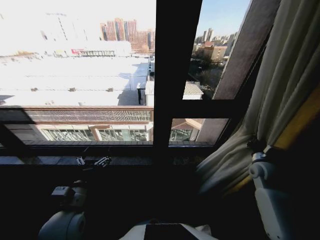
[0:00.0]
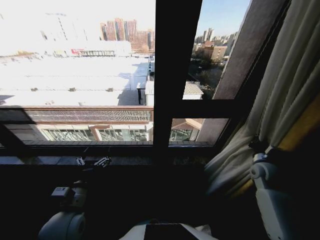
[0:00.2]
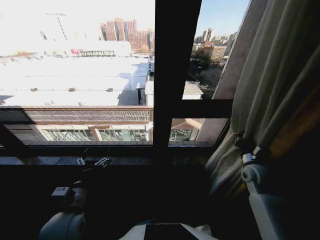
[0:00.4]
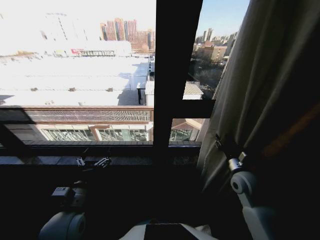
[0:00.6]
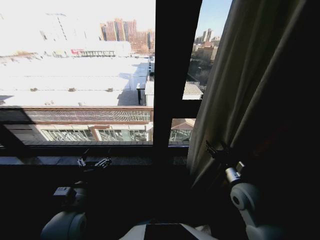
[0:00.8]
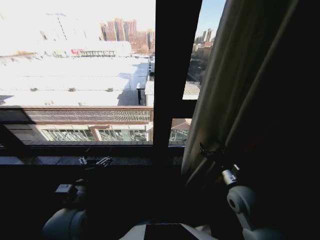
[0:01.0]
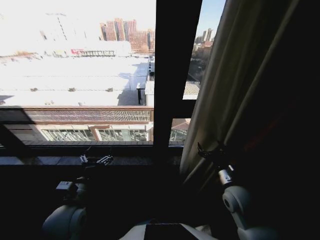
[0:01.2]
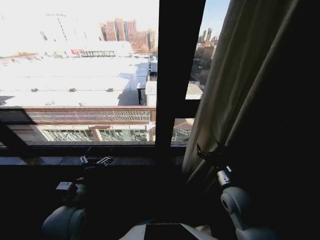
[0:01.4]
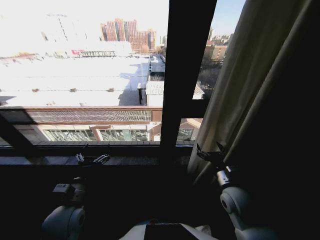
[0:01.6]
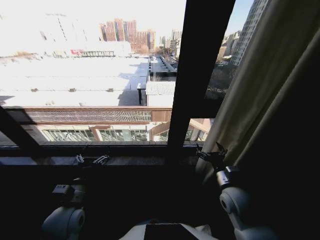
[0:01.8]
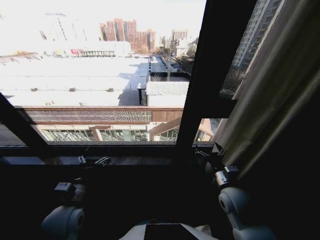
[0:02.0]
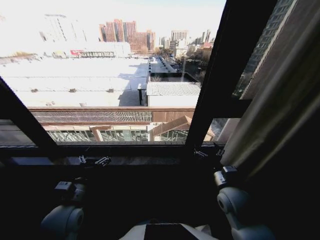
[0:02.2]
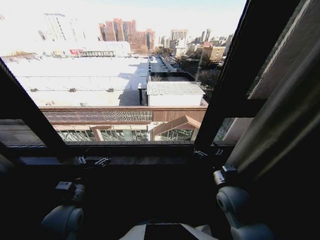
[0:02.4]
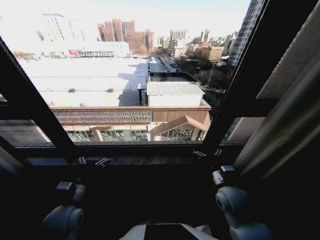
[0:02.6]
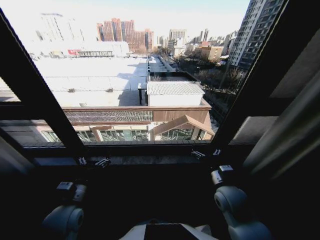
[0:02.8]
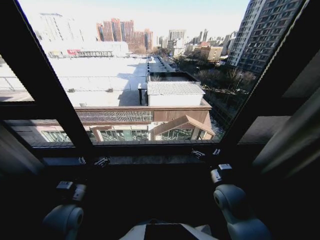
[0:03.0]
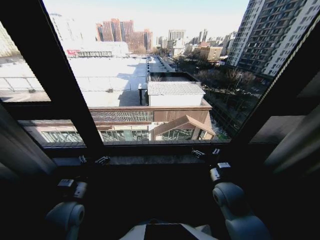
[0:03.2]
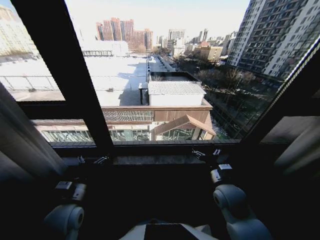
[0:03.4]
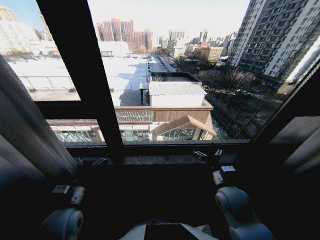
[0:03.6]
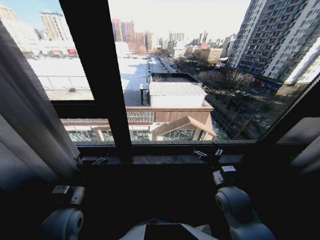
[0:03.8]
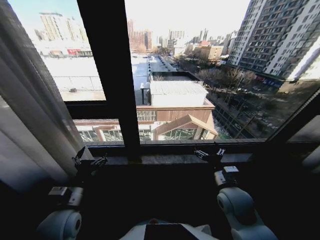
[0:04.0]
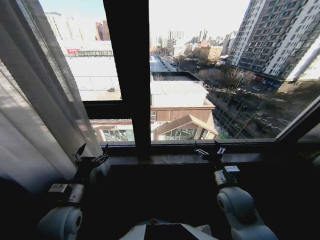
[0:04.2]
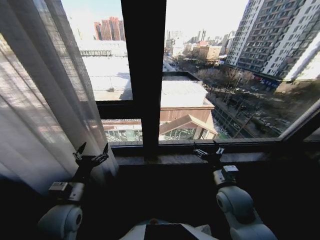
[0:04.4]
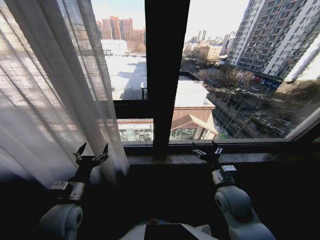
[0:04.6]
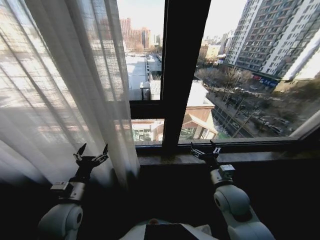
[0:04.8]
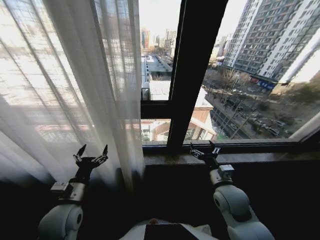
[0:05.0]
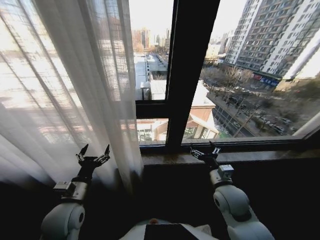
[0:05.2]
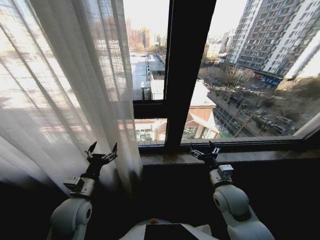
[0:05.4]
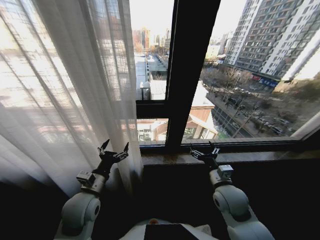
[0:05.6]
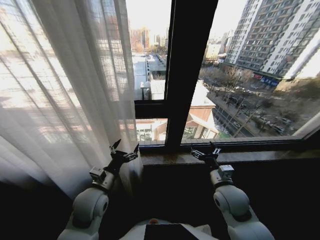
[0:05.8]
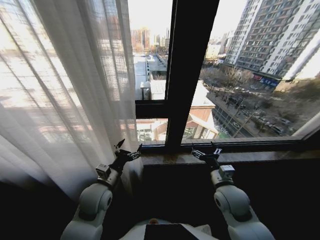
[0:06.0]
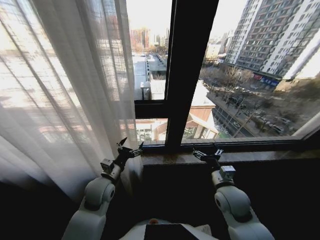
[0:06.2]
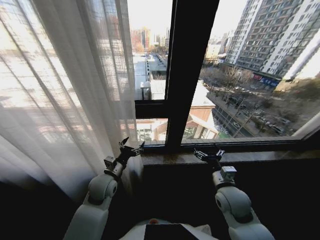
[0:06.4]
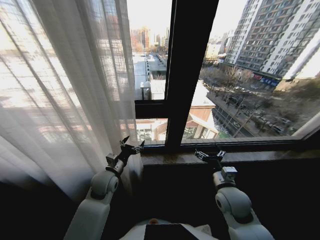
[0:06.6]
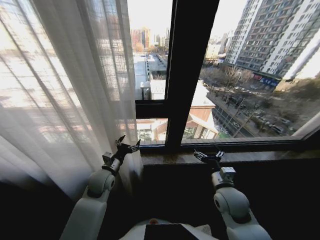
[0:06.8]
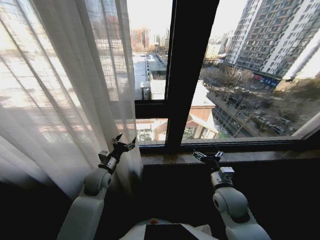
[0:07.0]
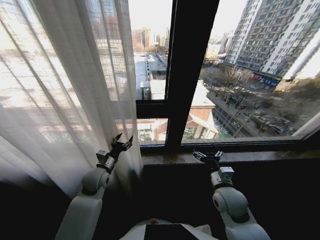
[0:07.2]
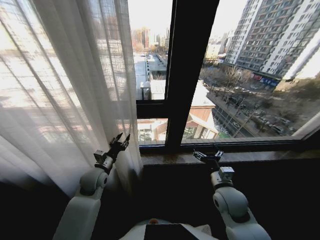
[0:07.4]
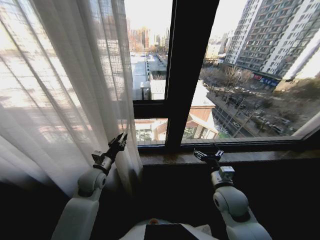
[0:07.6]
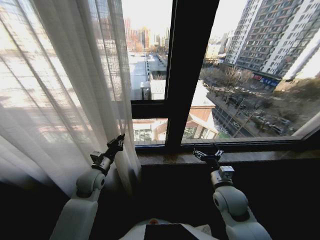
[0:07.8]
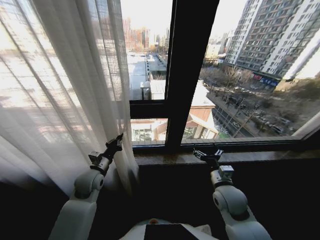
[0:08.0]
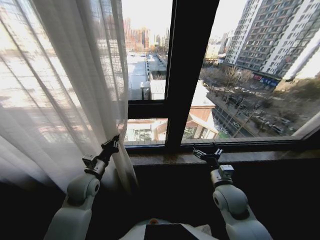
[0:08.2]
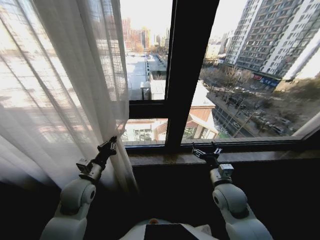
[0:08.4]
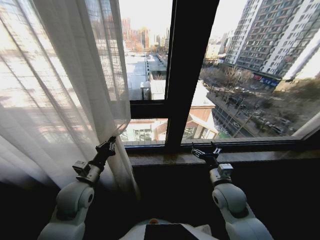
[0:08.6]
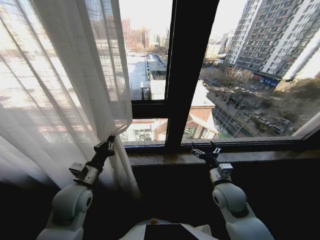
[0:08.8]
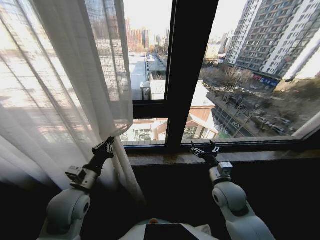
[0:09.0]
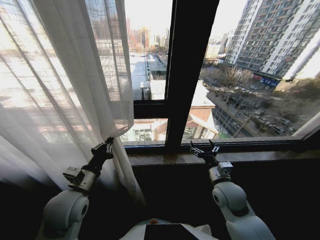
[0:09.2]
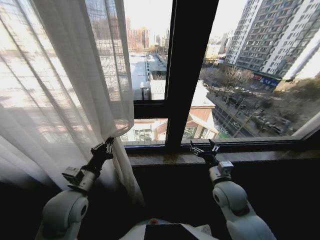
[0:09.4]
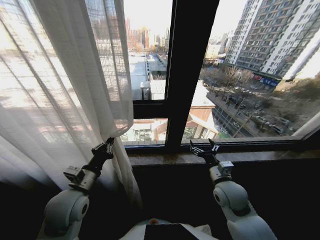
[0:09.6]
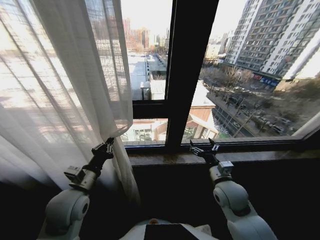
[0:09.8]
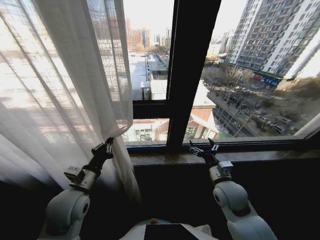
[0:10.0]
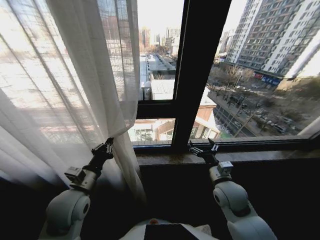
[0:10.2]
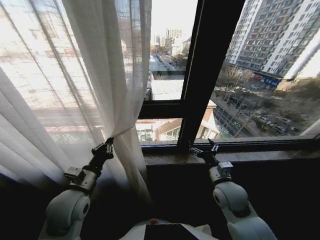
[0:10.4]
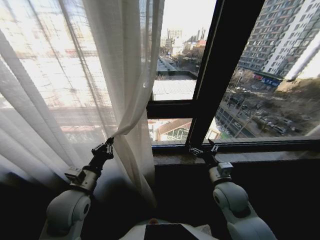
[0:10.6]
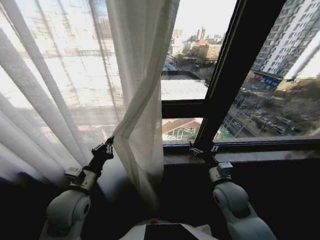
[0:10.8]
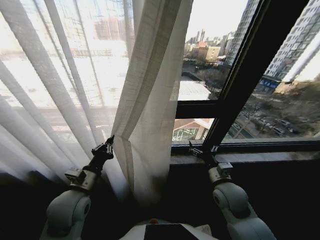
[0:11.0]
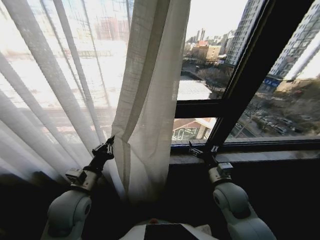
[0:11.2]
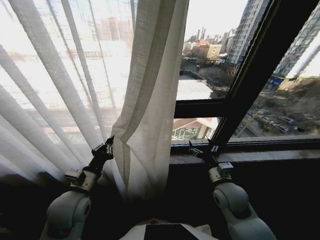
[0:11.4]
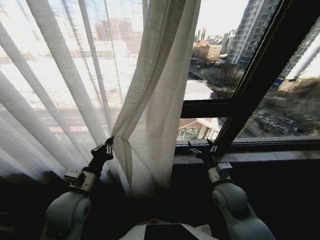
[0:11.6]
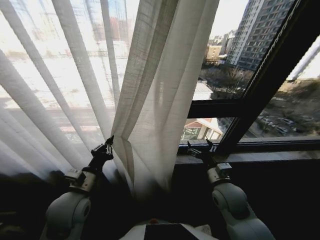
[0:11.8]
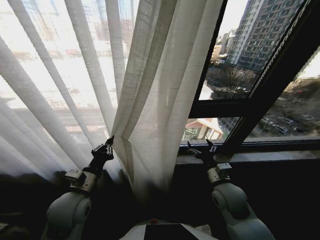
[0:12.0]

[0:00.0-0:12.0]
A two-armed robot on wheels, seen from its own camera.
Task of the whole recording: Open the curtains by pulling them apart, changing their state from closed to fully open.
0:00.0 to 0:01.6: The right gripper heads to the left and backward, covering some 20 cm, and opens up.
0:04.4 to 0:06.0: The left gripper heads to the right and forward, covering some 10 cm.
0:06.0 to 0:07.6: The left gripper shifts about 5 cm forward, and closes its fingers.
0:07.6 to 0:09.0: The left gripper travels backward and upward by about 10 cm.

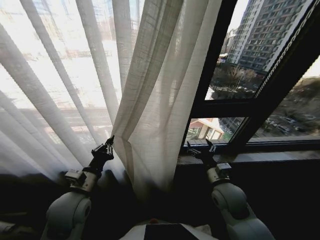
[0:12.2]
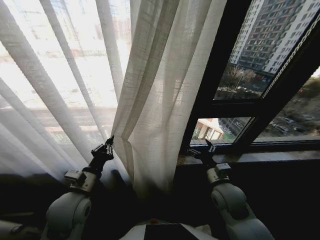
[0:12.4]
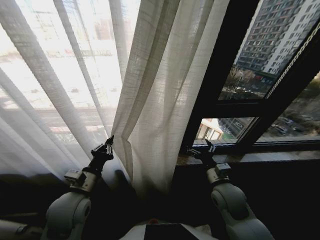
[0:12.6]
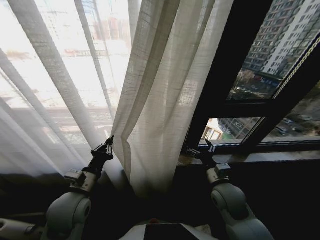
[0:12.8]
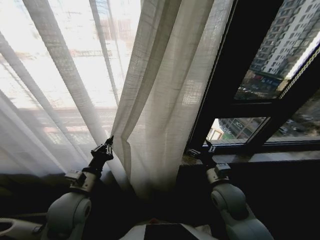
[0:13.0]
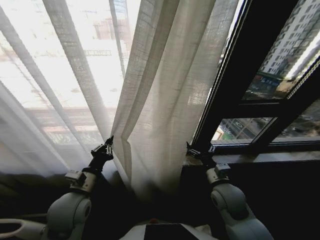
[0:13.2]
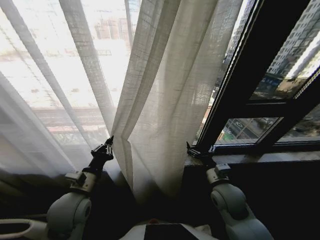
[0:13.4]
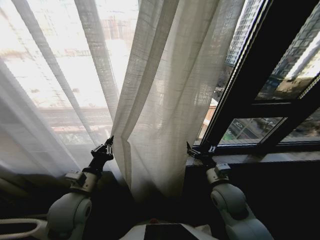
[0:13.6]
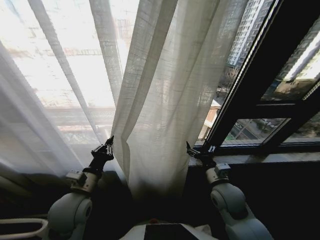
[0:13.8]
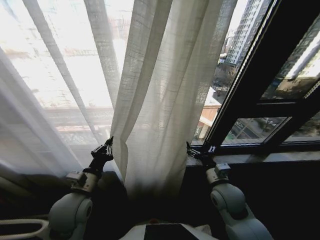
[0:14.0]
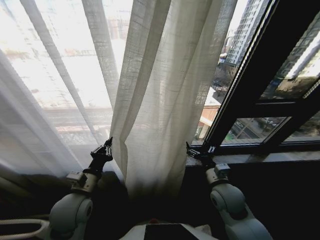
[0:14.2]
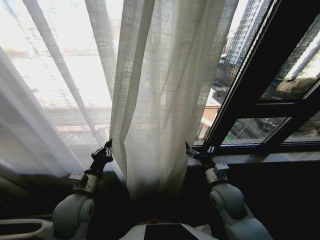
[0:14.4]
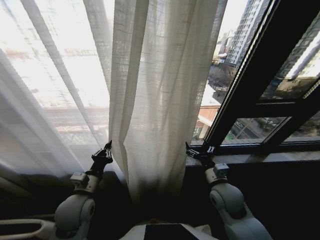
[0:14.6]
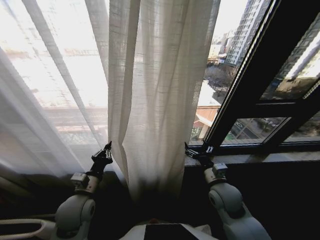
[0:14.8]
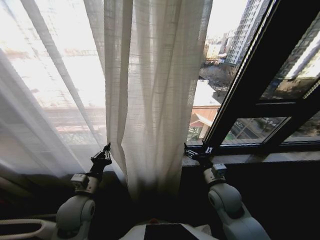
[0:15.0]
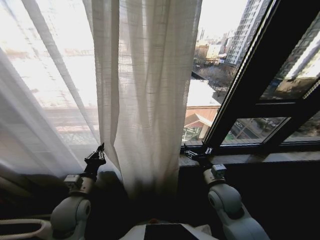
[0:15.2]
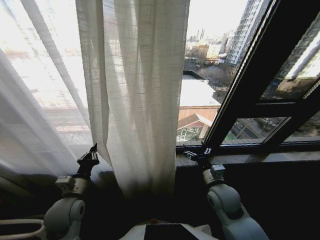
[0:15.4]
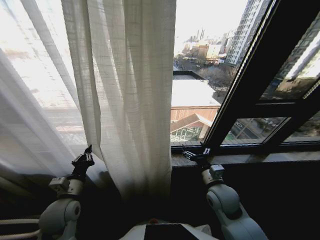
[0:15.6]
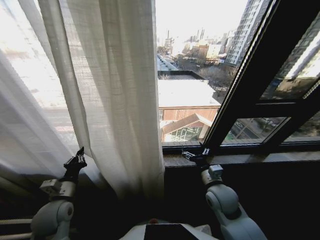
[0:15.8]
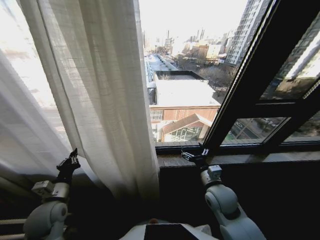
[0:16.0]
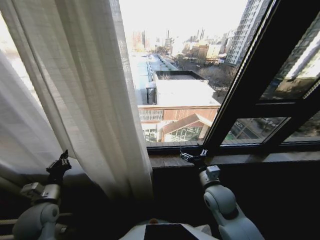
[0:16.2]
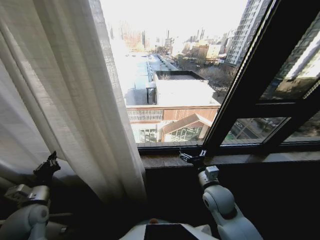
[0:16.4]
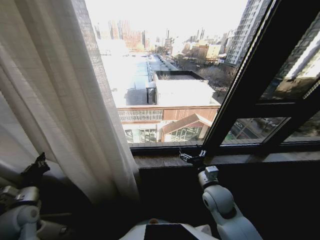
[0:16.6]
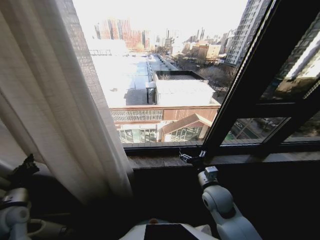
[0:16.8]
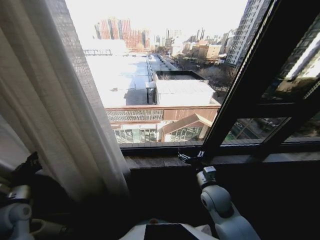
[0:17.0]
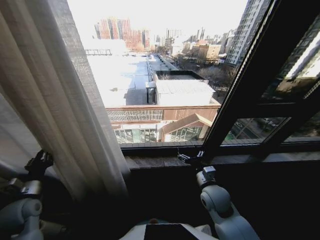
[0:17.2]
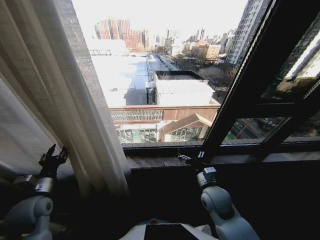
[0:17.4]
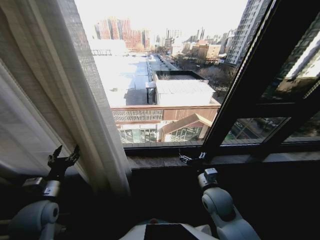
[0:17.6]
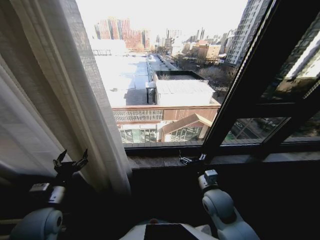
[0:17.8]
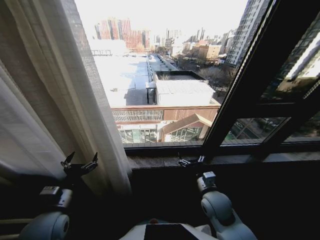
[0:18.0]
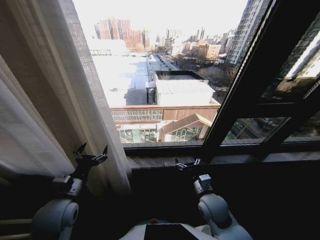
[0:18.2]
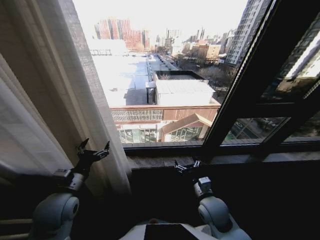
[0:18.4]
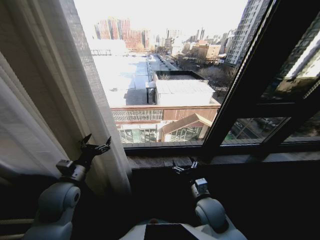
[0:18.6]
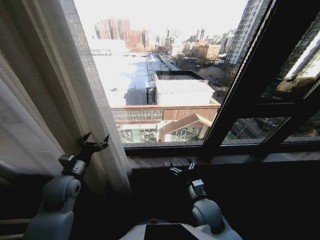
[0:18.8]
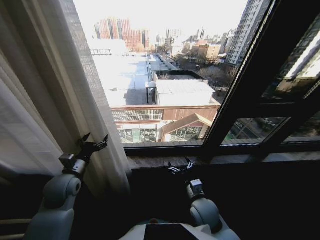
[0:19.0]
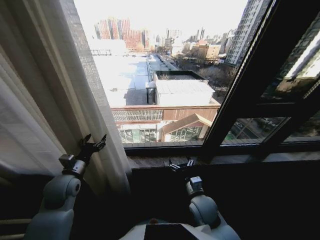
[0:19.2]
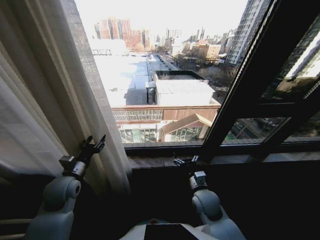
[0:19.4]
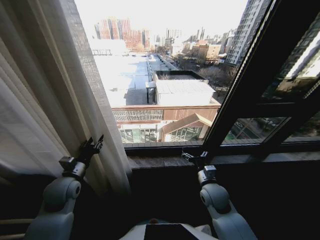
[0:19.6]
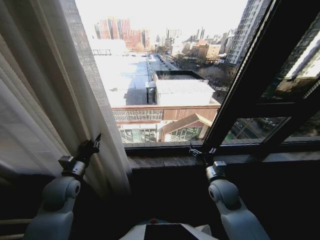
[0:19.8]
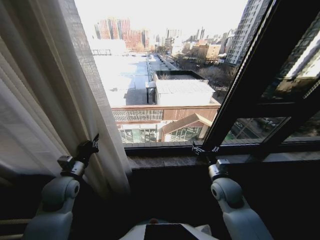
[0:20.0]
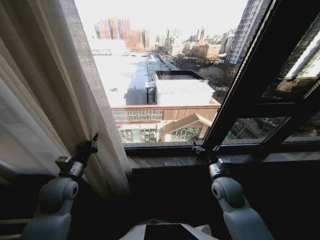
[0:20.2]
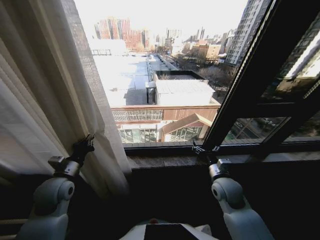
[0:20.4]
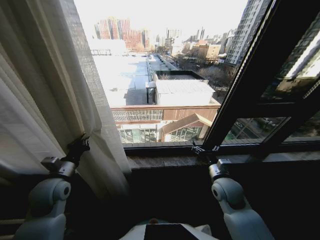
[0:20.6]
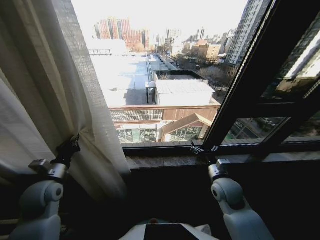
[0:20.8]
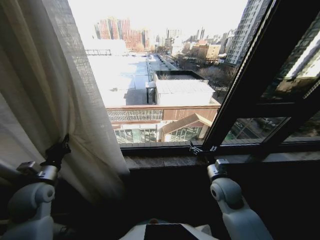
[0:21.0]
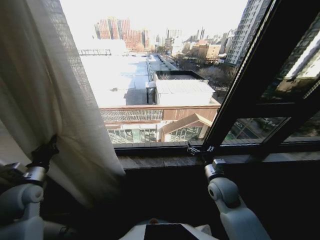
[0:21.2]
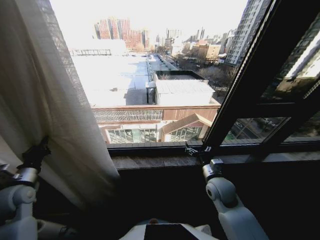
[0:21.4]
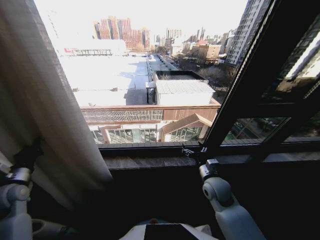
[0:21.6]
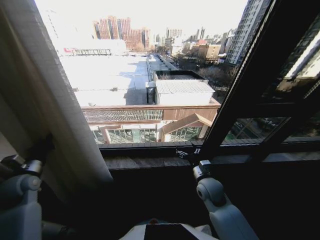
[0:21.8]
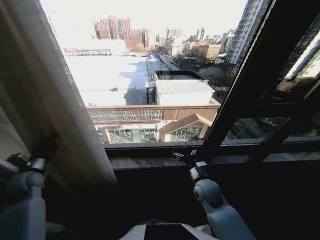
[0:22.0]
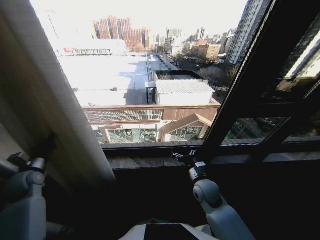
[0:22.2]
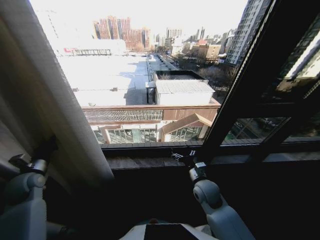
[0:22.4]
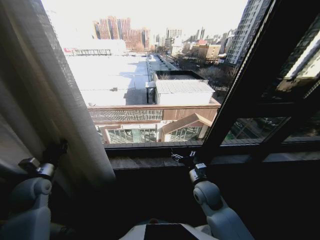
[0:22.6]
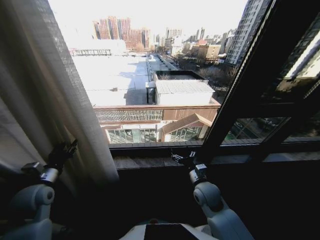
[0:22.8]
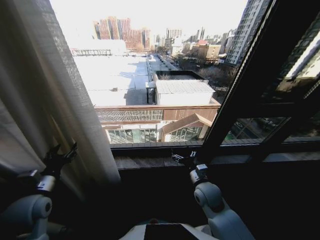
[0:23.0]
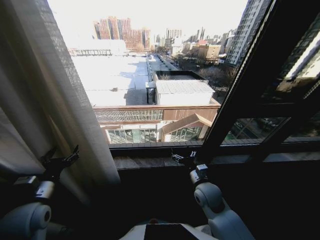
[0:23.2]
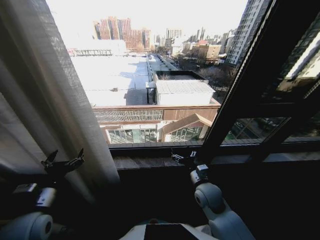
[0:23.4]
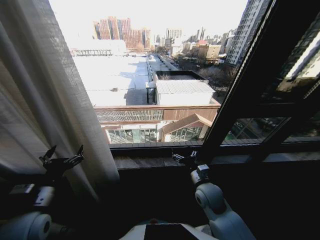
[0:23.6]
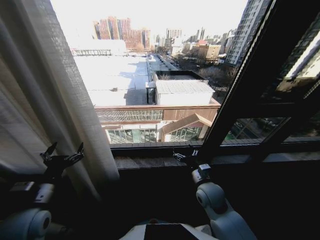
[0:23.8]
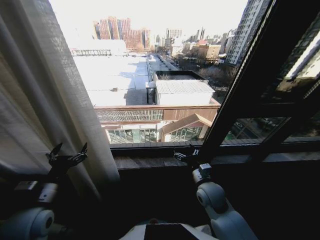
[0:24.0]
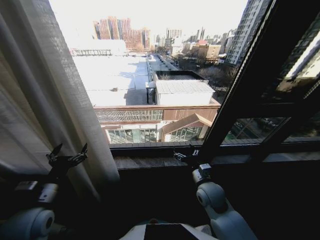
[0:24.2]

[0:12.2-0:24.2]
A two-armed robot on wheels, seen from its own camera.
Task of the whole recording: Open the curtains by pulling them apart, changing their state from closed to fully open.
0:13.8 to 0:15.2: The left gripper moves about 5 cm.
0:15.2 to 0:16.6: The left gripper heads to the left, covering roughly 20 cm.
0:16.6 to 0:18.2: The left gripper goes about 15 cm to the right, and opens.
0:18.2 to 0:19.8: The right gripper moves roughly 5 cm. Meanwhile the left gripper shifts roughly 10 cm forward, and closes its fingers.
0:19.8 to 0:21.2: The left gripper is displaced to the left by about 10 cm.
0:21.2 to 0:22.6: The right gripper shifts about 5 cm to the left.
0:22.6 to 0:24.2: The left gripper heads to the right and backward, covering some 15 cm, and opens.
